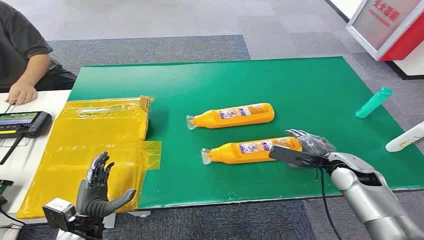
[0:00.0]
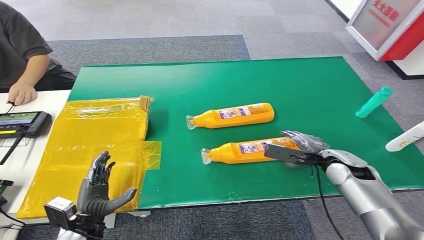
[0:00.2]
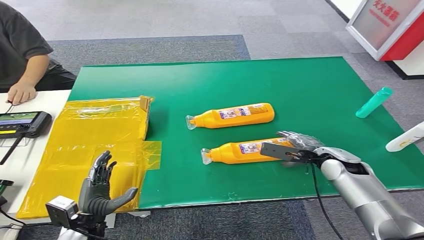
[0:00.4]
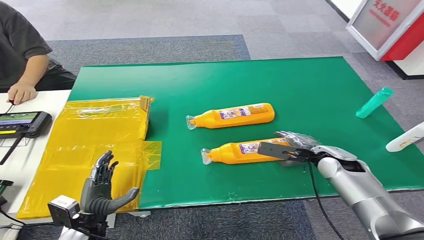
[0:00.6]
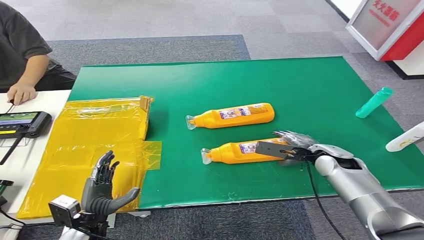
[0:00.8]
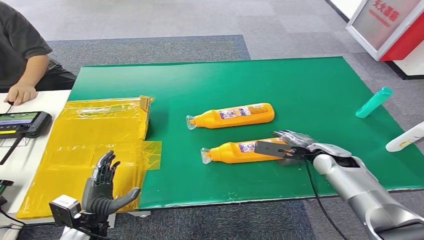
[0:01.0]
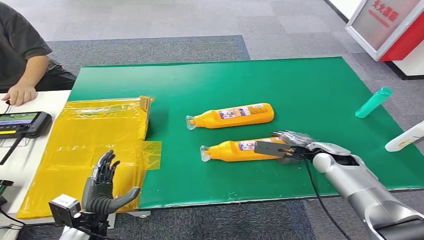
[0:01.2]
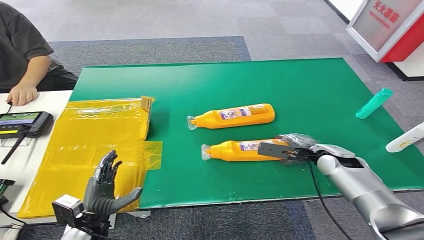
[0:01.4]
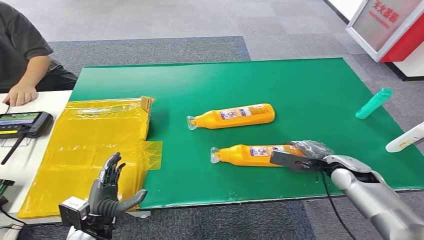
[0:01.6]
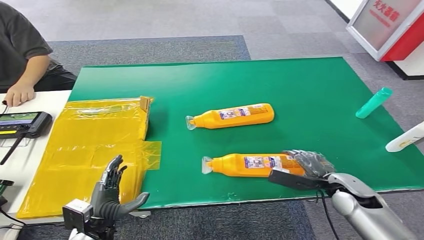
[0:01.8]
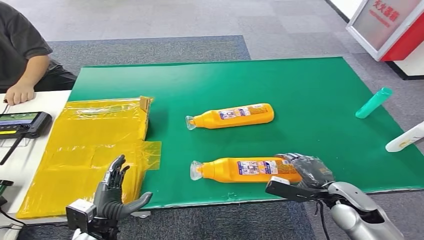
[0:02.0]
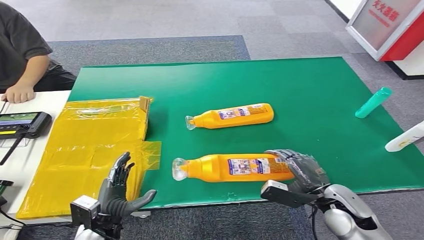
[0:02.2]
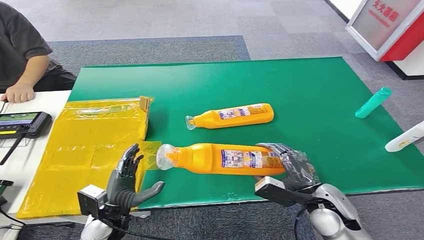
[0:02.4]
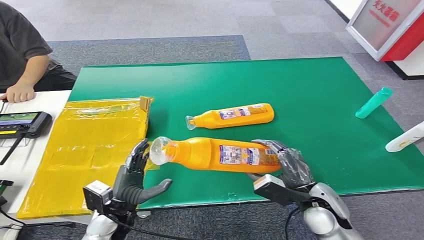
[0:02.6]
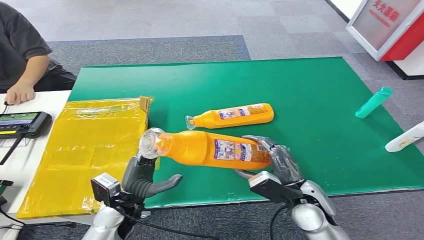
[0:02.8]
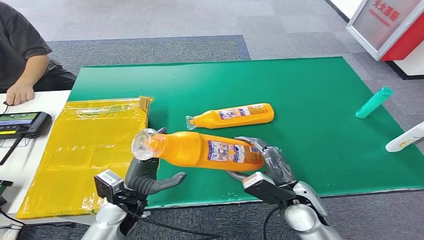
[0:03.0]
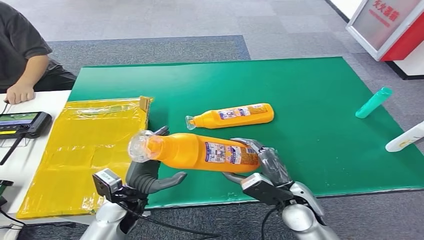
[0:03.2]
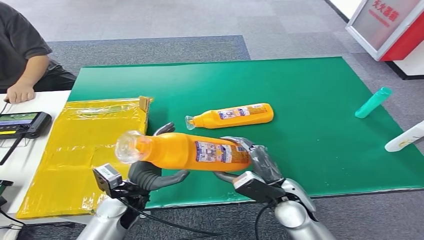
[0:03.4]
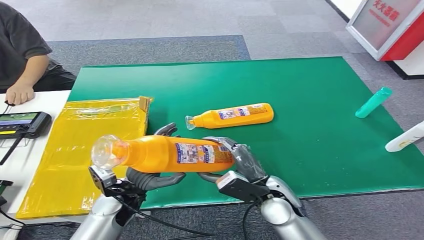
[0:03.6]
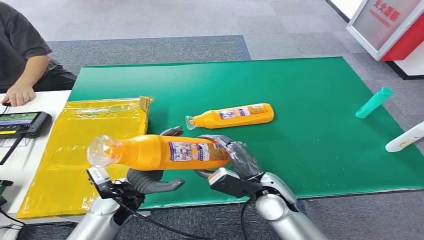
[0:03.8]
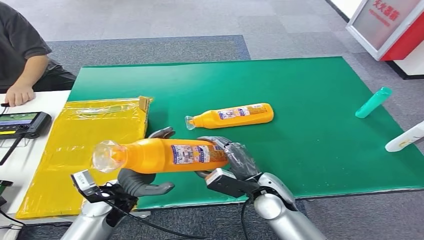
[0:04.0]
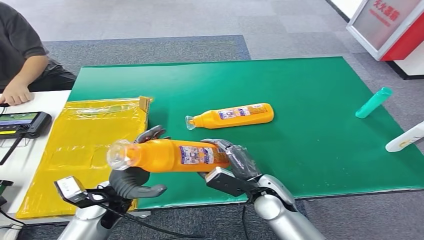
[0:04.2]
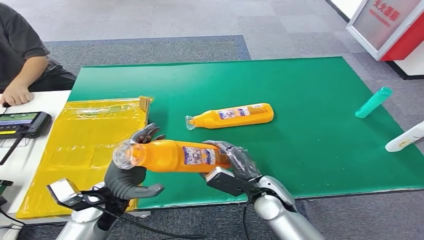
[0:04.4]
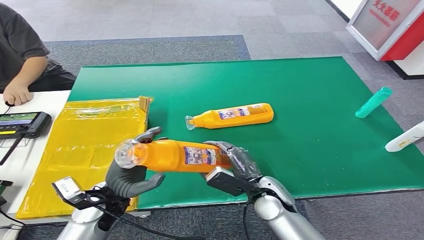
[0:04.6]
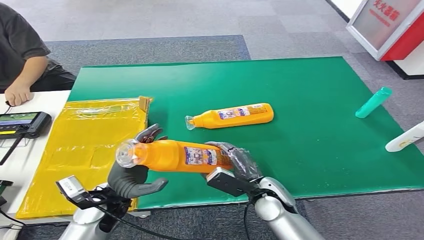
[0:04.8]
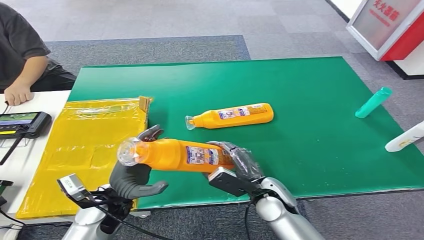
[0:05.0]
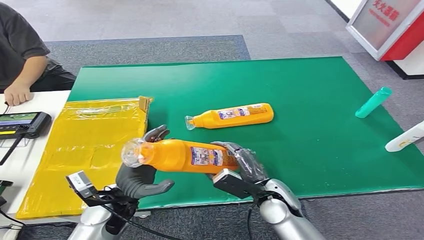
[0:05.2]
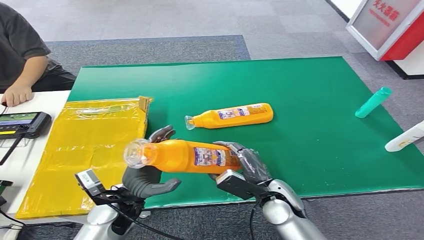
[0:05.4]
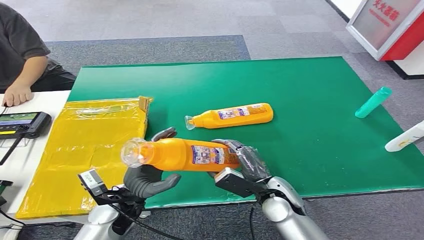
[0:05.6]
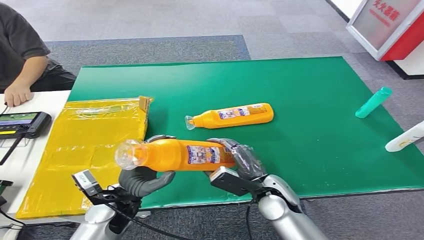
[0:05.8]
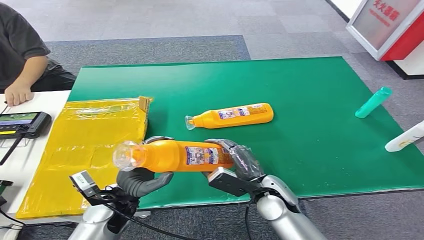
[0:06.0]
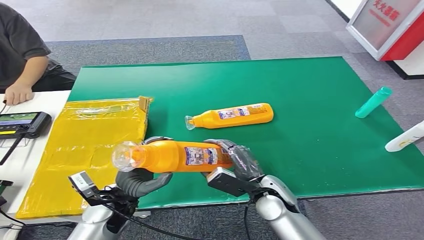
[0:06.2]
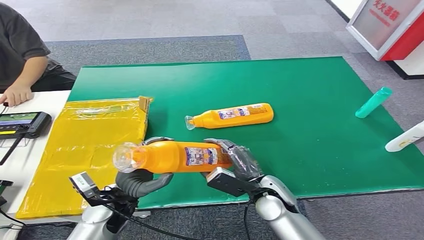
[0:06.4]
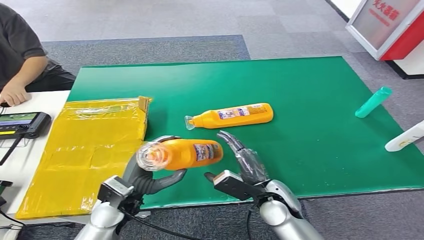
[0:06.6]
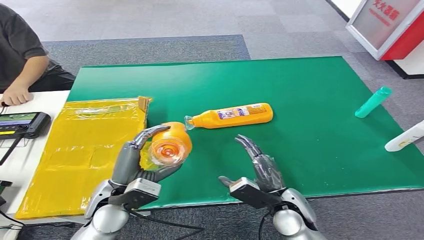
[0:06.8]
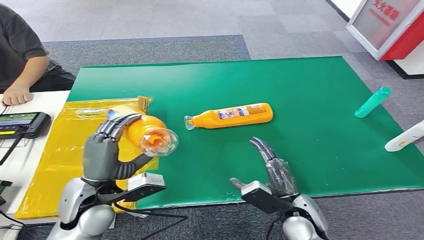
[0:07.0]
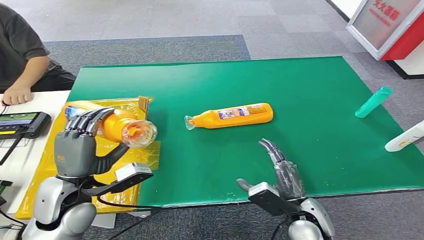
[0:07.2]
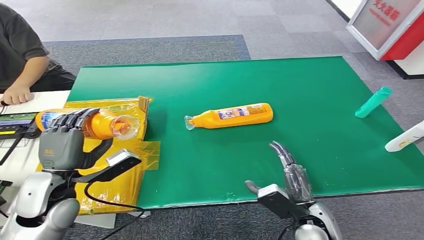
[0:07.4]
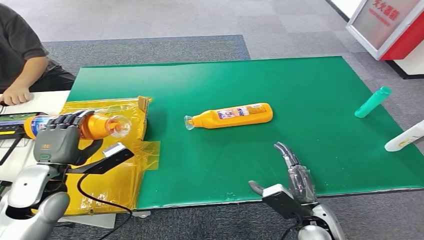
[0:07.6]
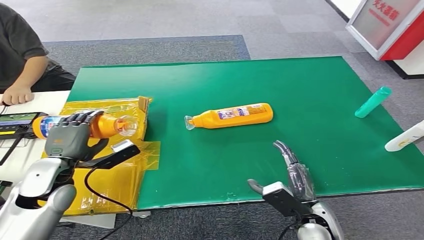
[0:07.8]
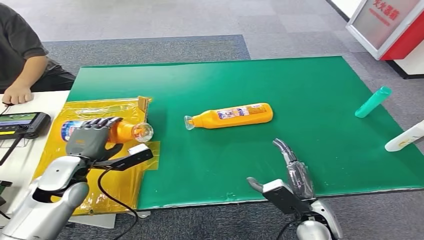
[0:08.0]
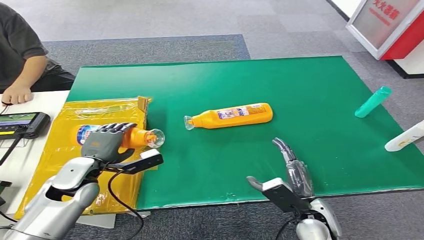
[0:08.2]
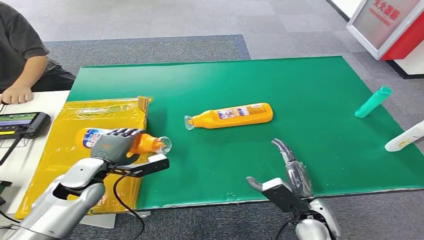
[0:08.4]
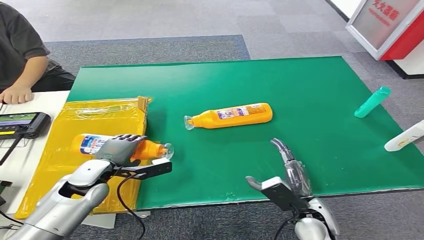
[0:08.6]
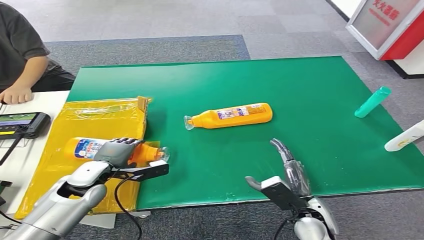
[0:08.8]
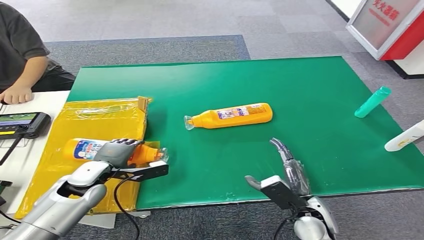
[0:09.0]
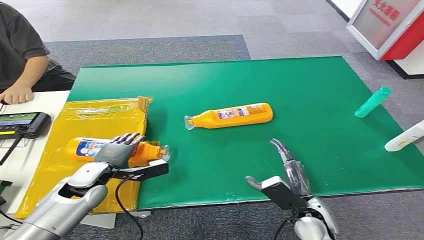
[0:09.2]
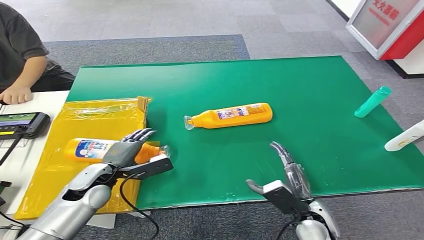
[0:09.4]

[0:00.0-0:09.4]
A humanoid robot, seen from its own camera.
Step, 0:00.0 to 0:02.4: Pick up the bottle from the table.
Step, 0:03.8 to 0:09.4: Turn the bottle to the front side.
0:01.6 to 0:03.2: The left hand goes roughly 10 cm to the right, forward and upward, while the right hand shifts approximately 20 cm to the left and backward.
0:03.2 to 0:04.8: The right hand shifts by some 5 cm.
0:04.8 to 0:06.2: The hands stay close to where they were, moving slightly.
0:06.2 to 0:07.8: The left hand goes some 15 cm to the left and upward; the right hand is displaced to the right and backward by about 10 cm.
0:07.8 to 0:09.4: The left hand is displaced downward by approximately 10 cm.
